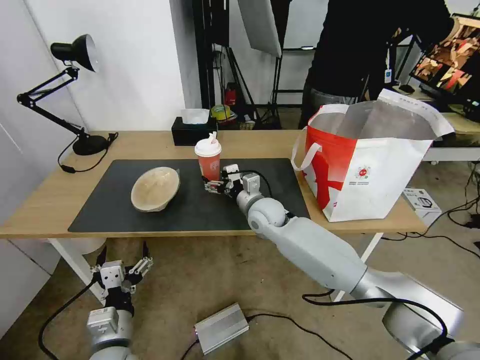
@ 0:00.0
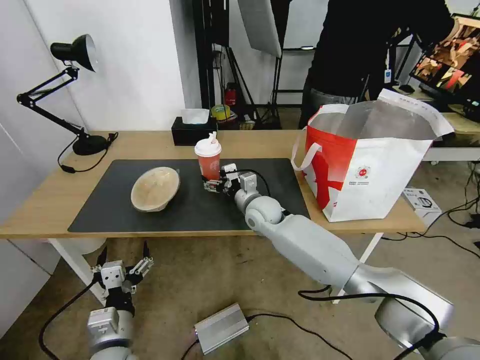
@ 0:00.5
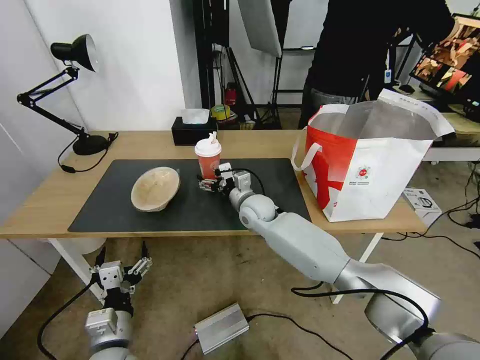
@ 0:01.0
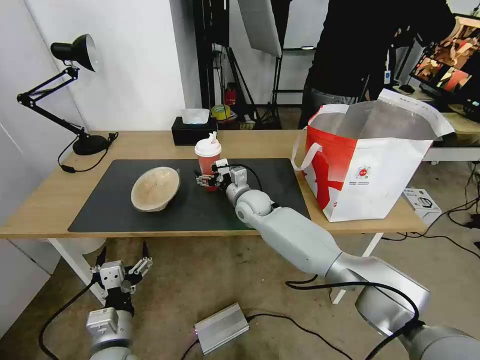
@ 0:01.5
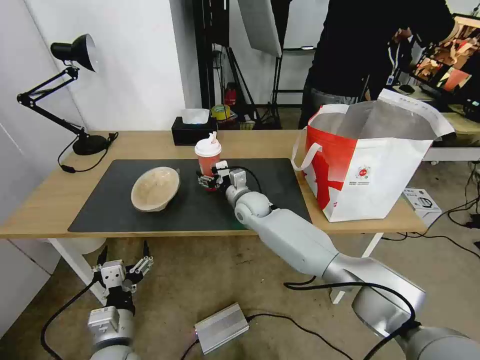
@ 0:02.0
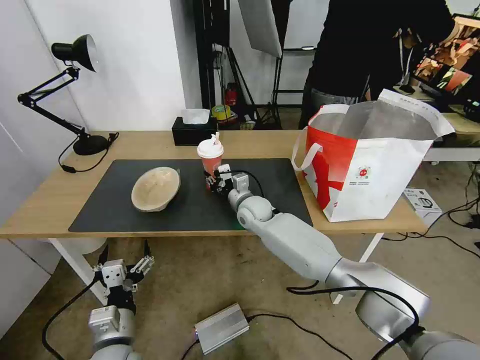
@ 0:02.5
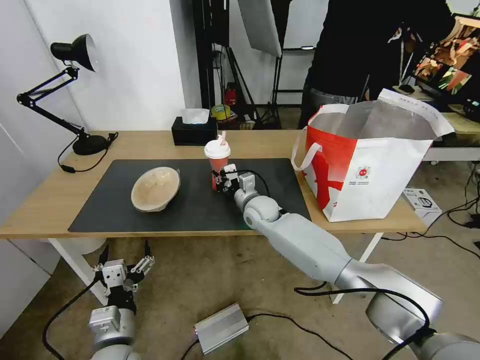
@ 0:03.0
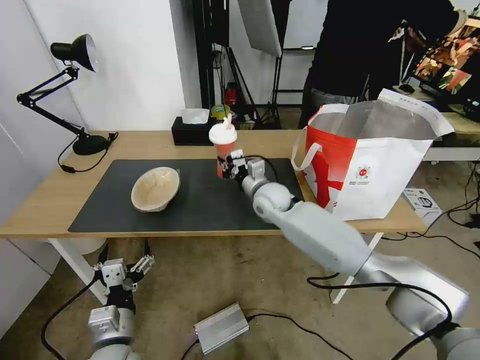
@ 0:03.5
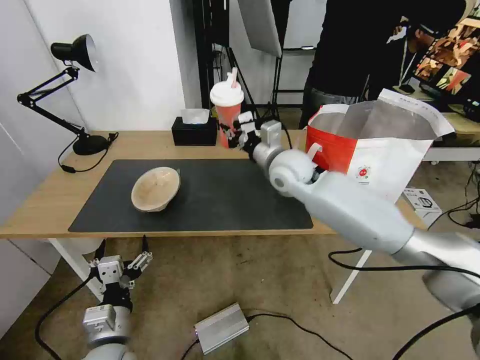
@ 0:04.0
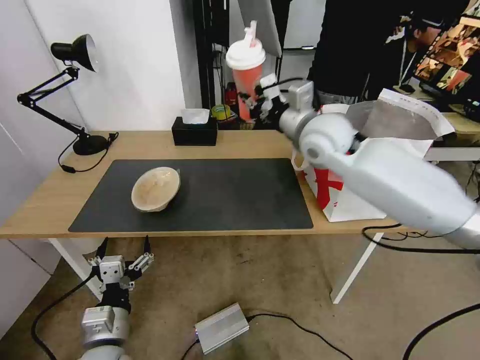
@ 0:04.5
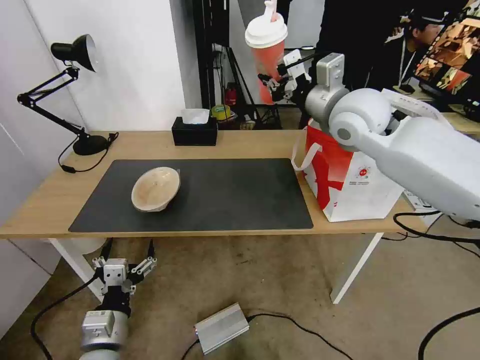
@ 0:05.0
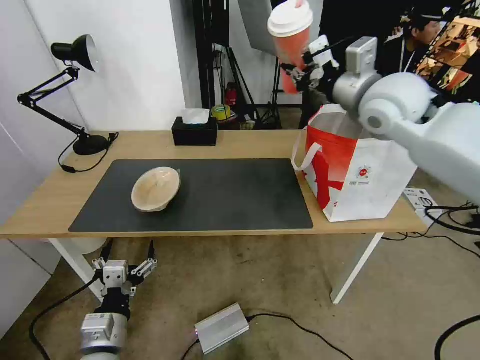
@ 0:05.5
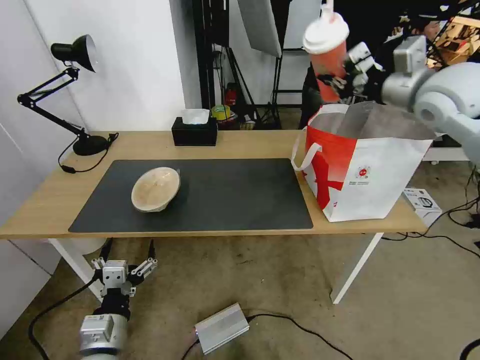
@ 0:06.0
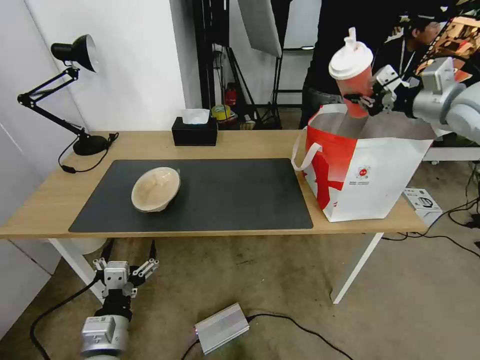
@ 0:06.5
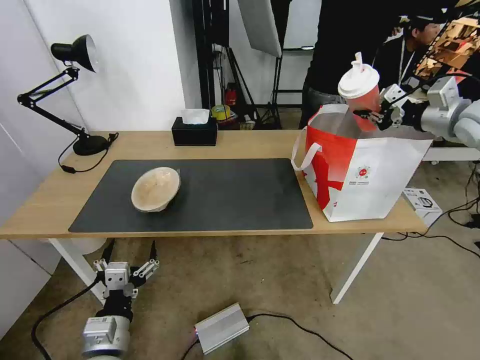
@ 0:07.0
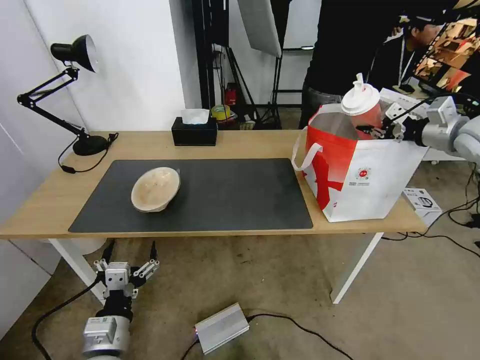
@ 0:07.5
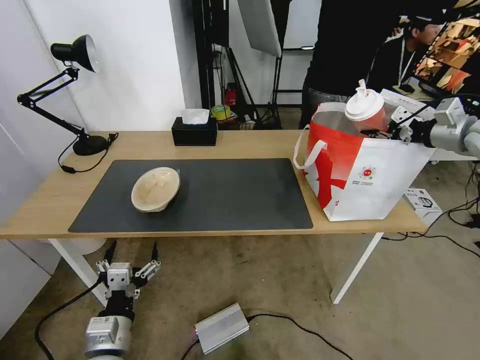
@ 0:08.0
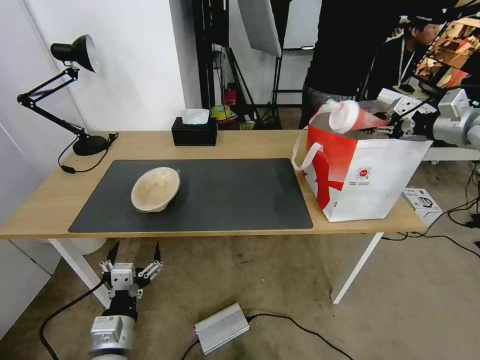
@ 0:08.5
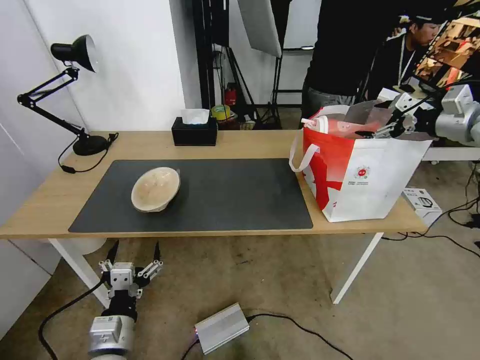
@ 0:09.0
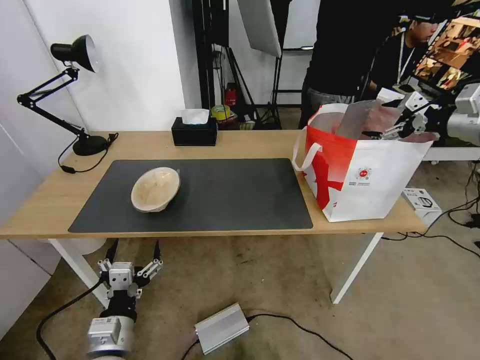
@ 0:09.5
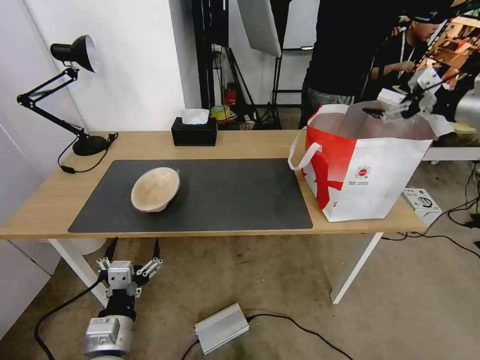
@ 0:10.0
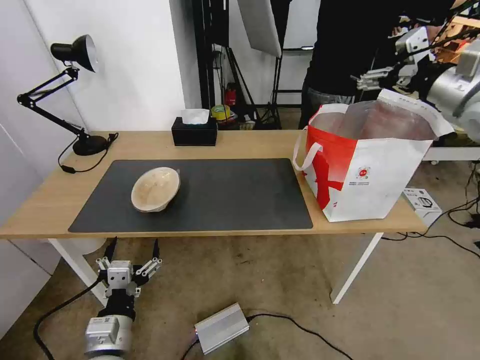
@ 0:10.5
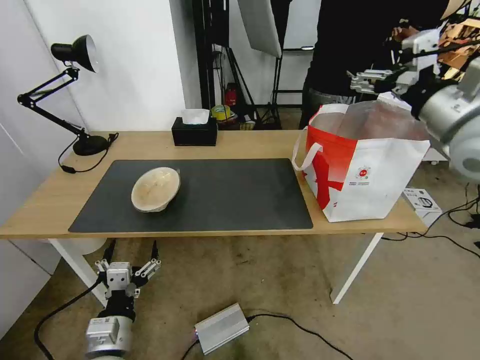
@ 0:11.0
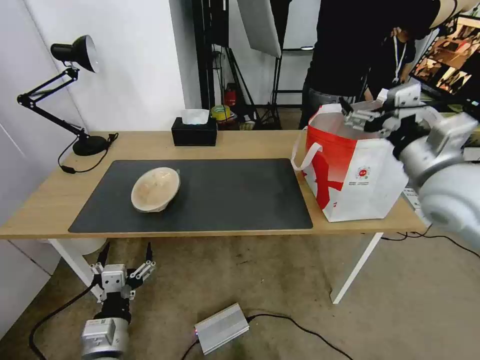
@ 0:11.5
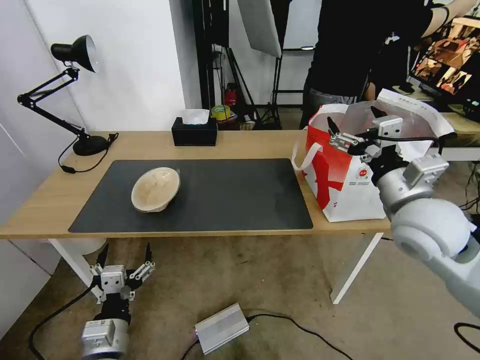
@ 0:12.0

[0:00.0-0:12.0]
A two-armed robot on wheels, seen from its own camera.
Task of the whole recording: Pick up the trash from the table and place it into the takeout bag.
0:00.0 to 0:02.0: The right gripper changes place by about 5 cm.
0:02.0 to 0:04.0: The right gripper heads upward and to the right, covering approximately 20 cm, and closes.
0:04.0 to 0:06.0: The right gripper is displaced to the right and upward by some 30 cm.
0:06.0 to 0:08.0: The right gripper moves to the right and downward, approximately 15 cm.
0:08.0 to 0:10.0: The right gripper is displaced upward by approximately 5 cm, and opens its fingers.
0:10.0 to 0:12.0: The right gripper heads to the left, backward and downward, covering roughly 30 cm.

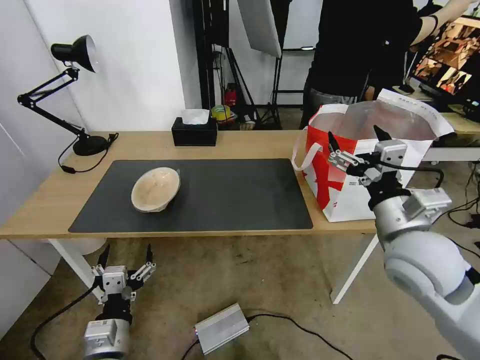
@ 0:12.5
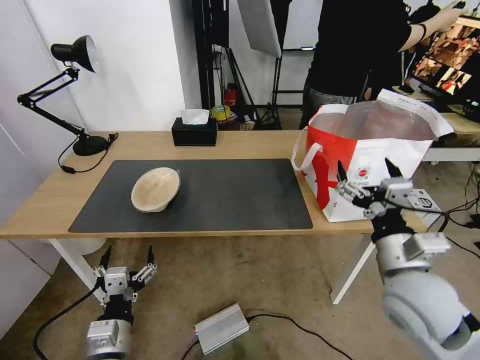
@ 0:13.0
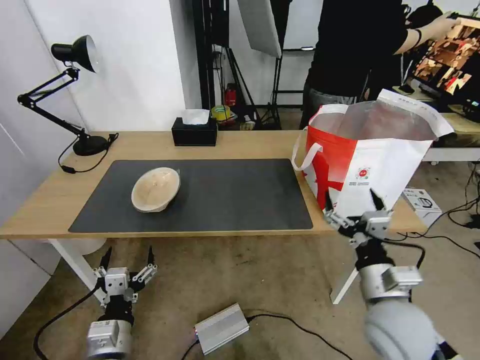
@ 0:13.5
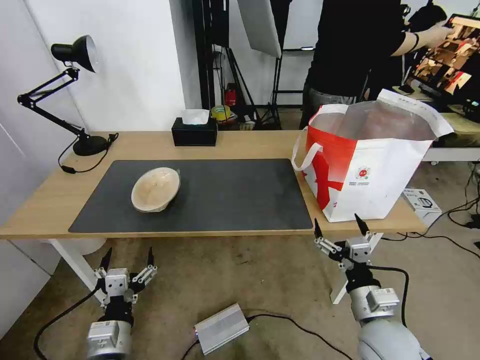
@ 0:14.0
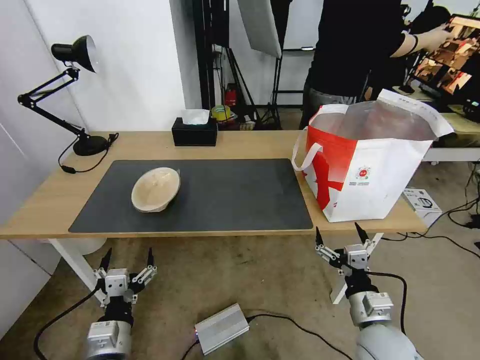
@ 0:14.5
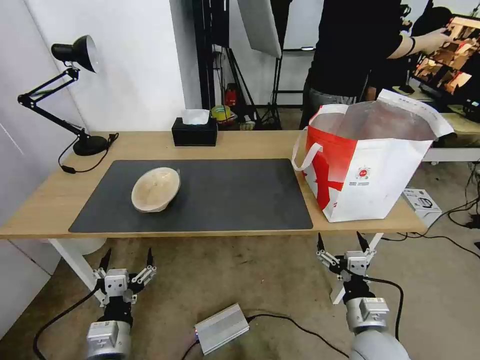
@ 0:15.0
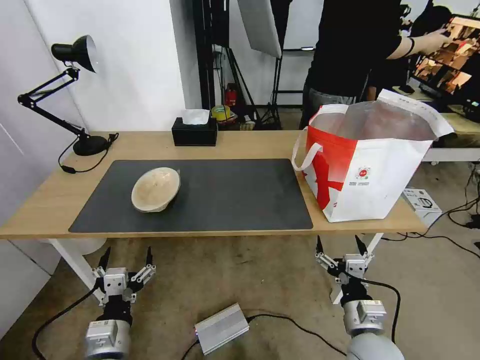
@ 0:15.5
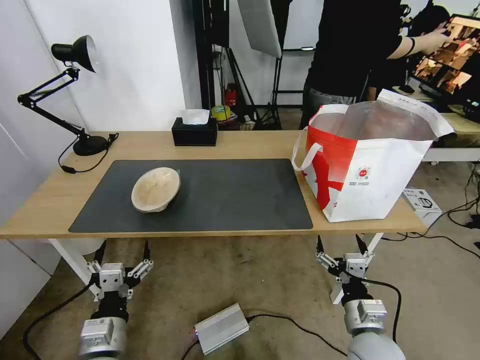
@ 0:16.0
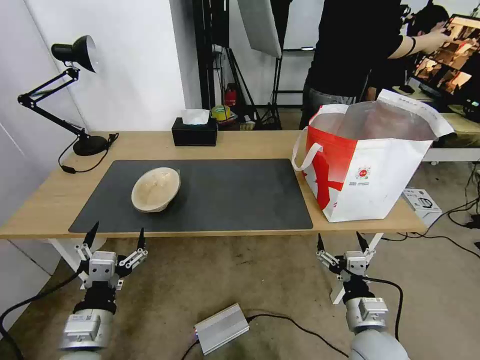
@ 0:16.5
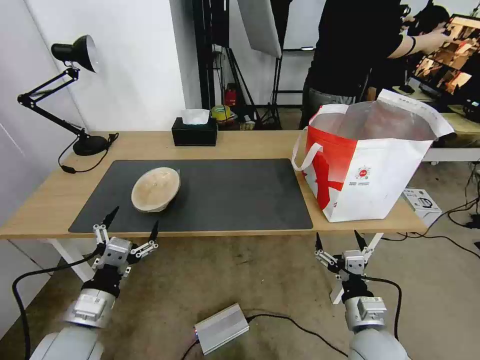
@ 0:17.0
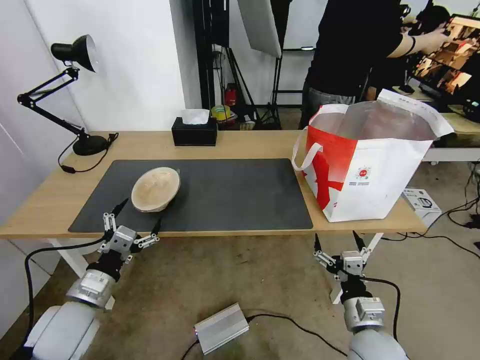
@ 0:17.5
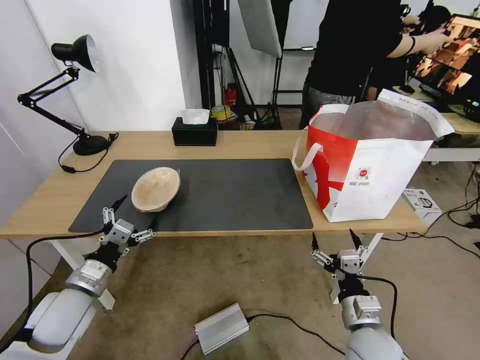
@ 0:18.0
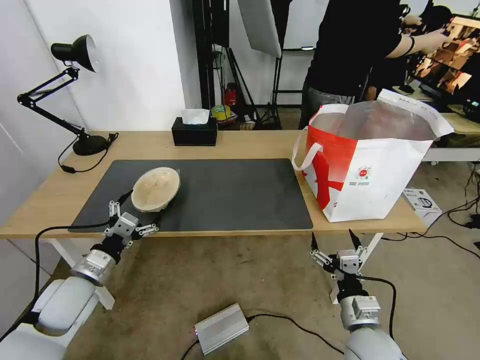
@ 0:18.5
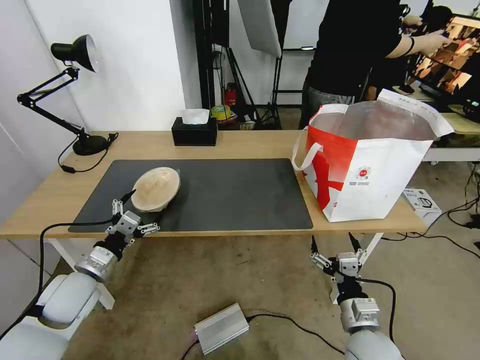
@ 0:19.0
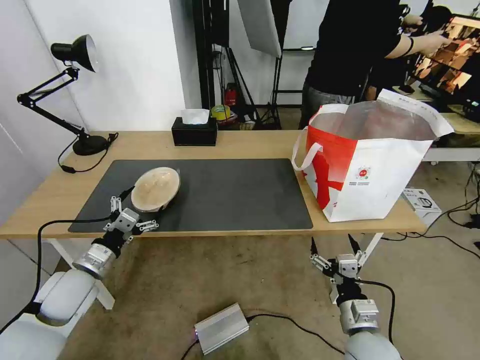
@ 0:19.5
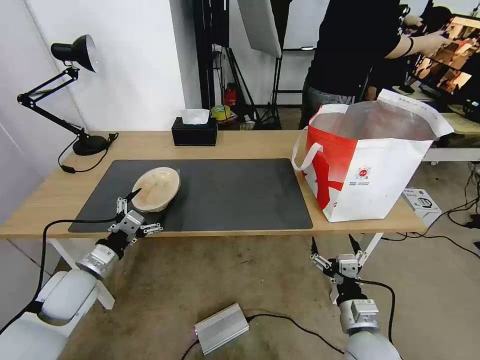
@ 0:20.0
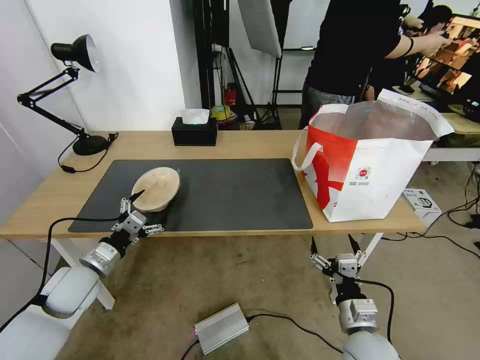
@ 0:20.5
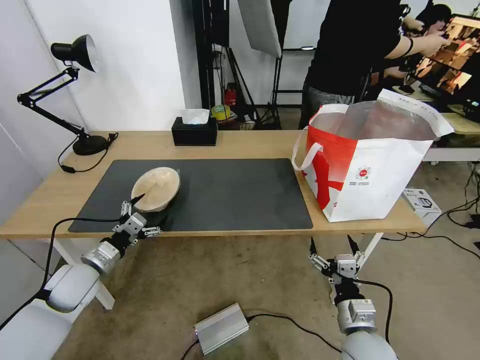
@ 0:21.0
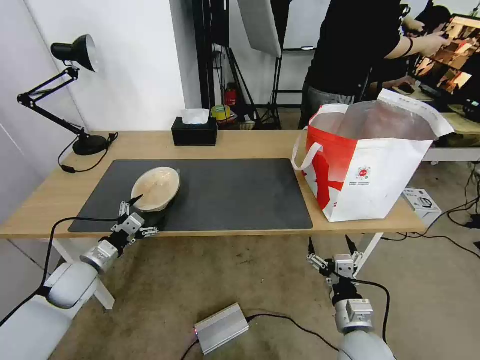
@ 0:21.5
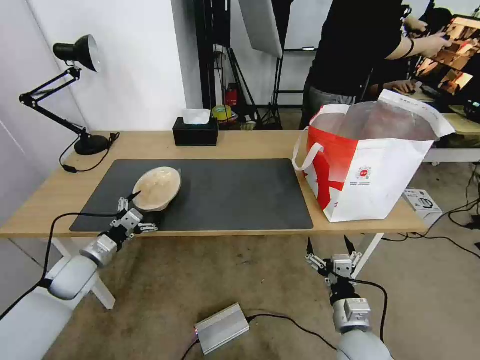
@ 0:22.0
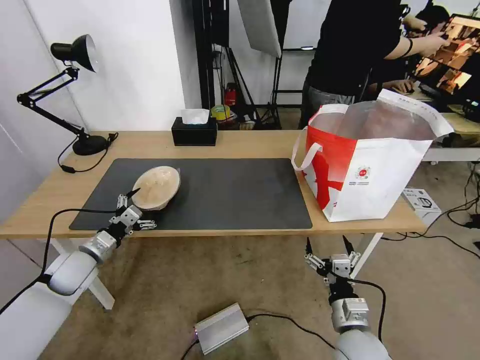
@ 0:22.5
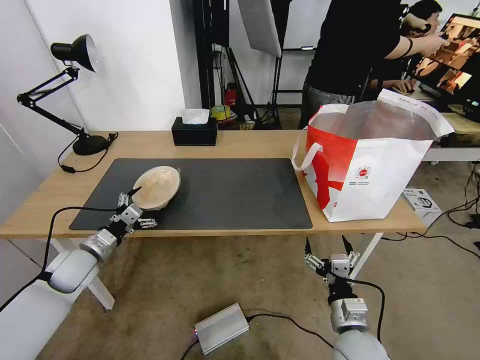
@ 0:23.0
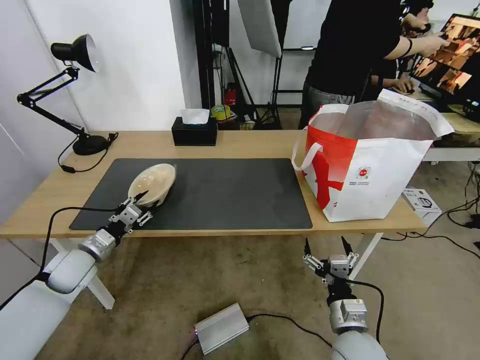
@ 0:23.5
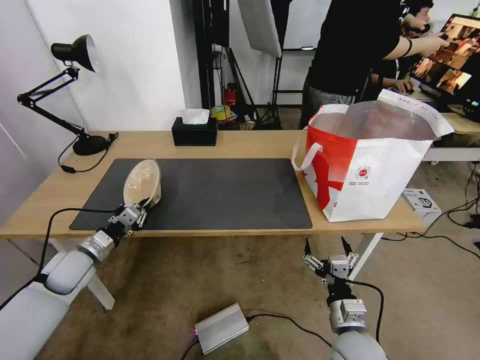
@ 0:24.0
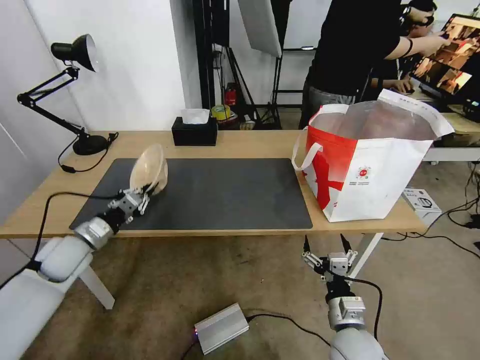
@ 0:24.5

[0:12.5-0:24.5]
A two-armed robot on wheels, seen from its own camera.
Task of the whole recording: Pick up the trash from the table and place it into the takeout bag.
0:12.5 to 0:14.5: The right gripper is displaced downward and backward by about 20 cm.
0:14.5 to 0:16.5: The left gripper travels upward by about 5 cm.
0:16.5 to 0:18.5: The left gripper is displaced forward and to the left by approximately 15 cm.
0:18.5 to 0:20.5: There are only small adjustments of the grippers.
0:20.5 to 0:22.5: The left gripper changes place by approximately 5 cm.
0:22.5 to 0:24.5: The left gripper travels upward by approximately 5 cm, and closes up.

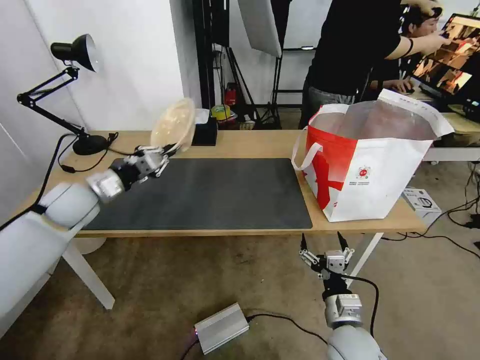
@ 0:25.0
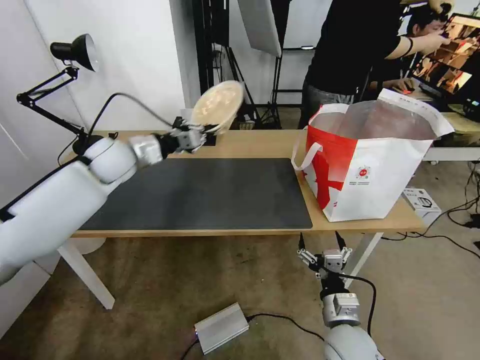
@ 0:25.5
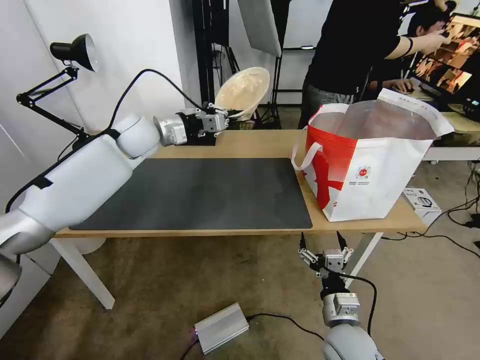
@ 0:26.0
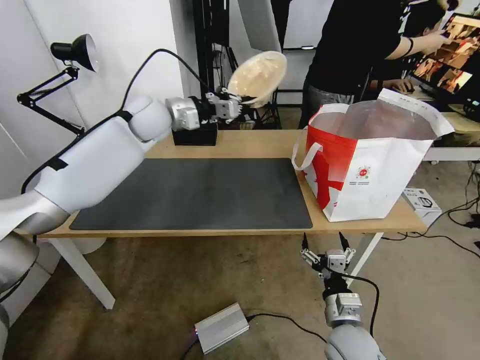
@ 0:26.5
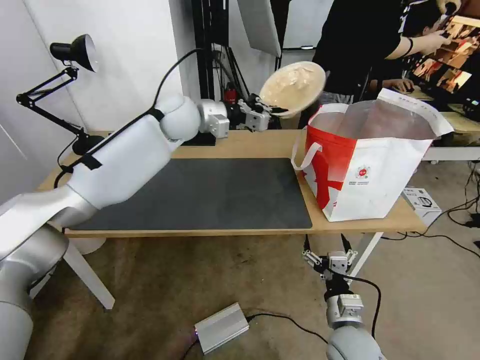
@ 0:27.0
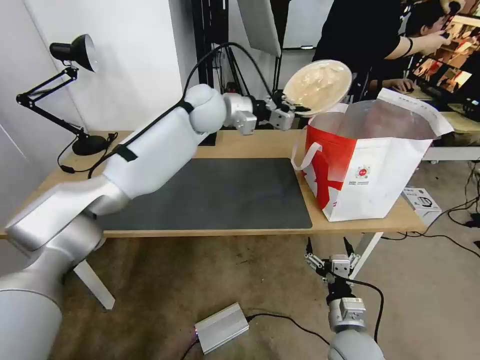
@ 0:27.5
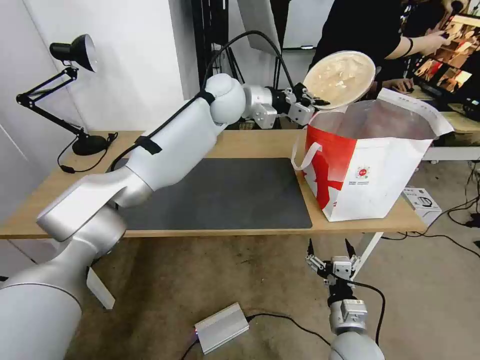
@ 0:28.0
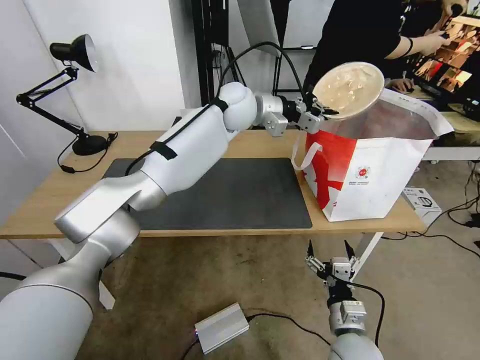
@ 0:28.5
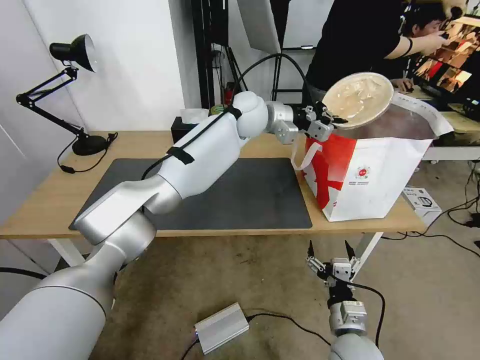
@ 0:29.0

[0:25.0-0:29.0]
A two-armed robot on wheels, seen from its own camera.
Task of the whole recording: Pick up the trash from the table and place it into the takeout bag.
0:25.0 to 0:27.0: The left gripper heads to the right, forward and upward, covering approximately 30 cm.
0:27.0 to 0:29.0: The left gripper heads to the right, covering some 15 cm.
